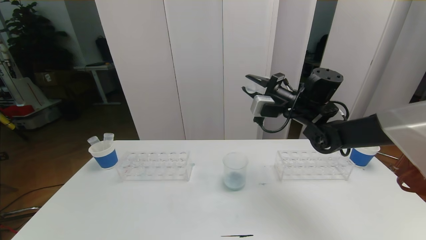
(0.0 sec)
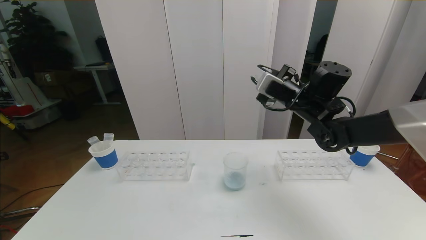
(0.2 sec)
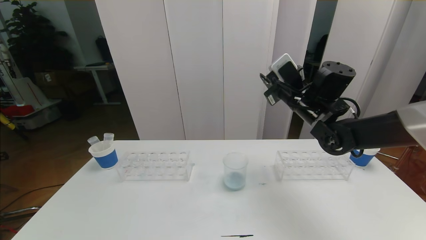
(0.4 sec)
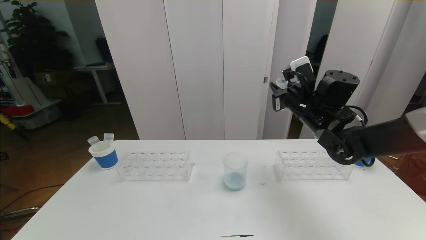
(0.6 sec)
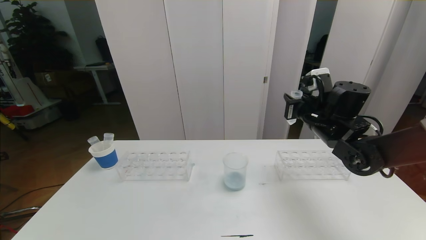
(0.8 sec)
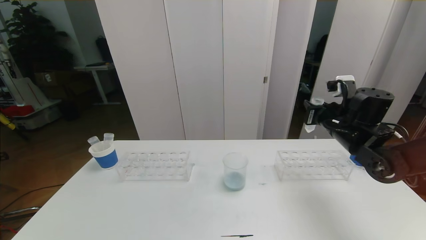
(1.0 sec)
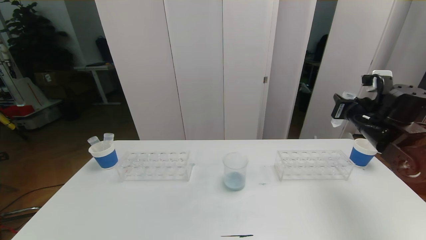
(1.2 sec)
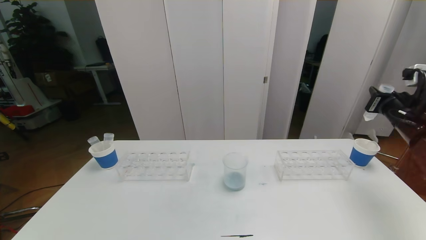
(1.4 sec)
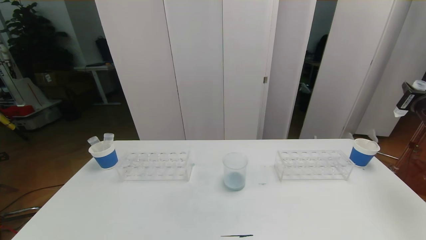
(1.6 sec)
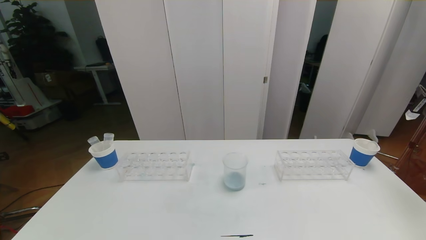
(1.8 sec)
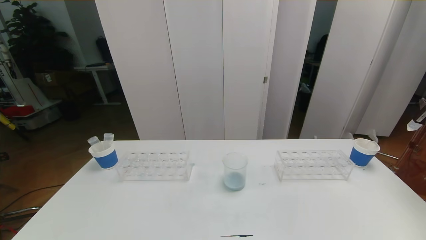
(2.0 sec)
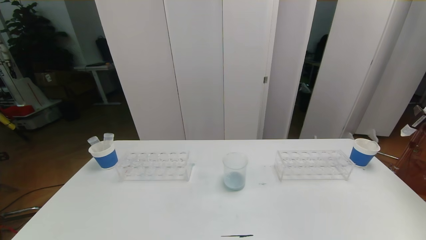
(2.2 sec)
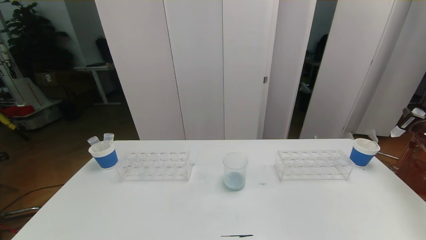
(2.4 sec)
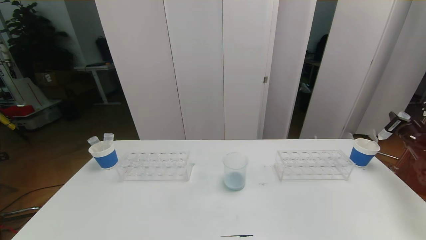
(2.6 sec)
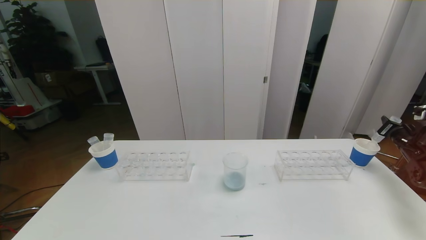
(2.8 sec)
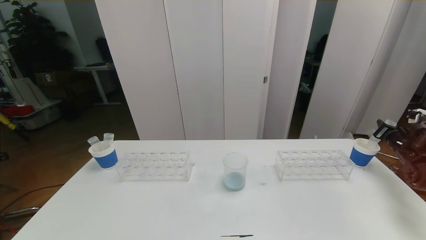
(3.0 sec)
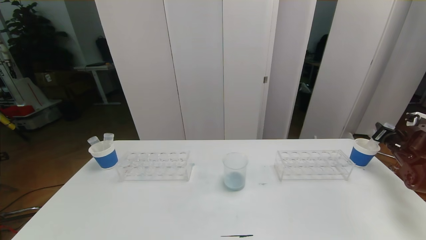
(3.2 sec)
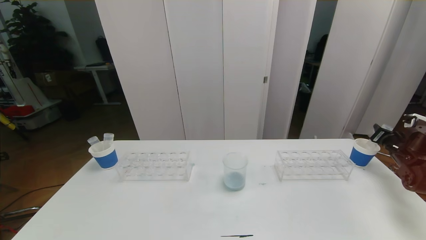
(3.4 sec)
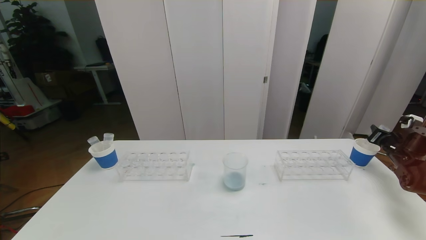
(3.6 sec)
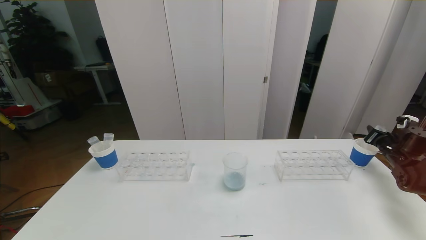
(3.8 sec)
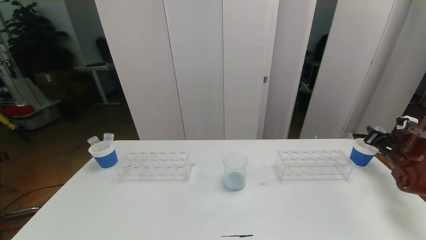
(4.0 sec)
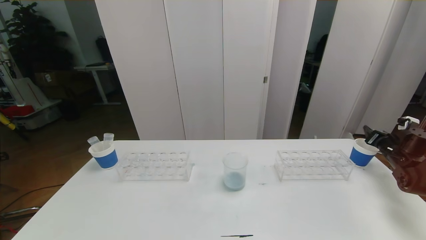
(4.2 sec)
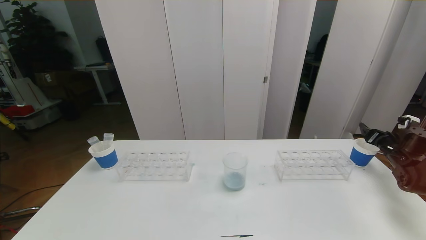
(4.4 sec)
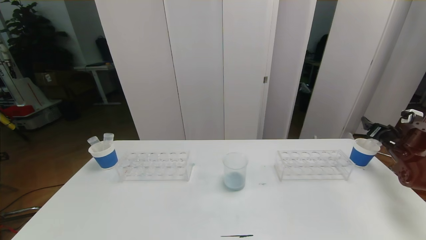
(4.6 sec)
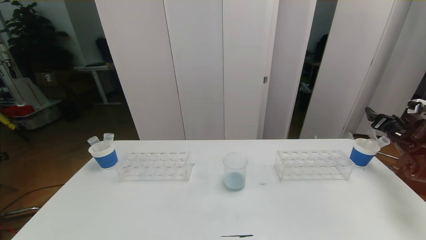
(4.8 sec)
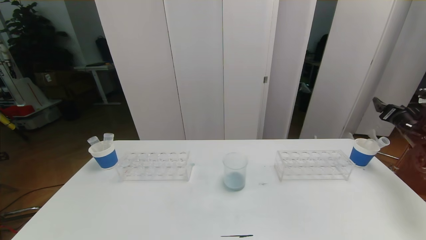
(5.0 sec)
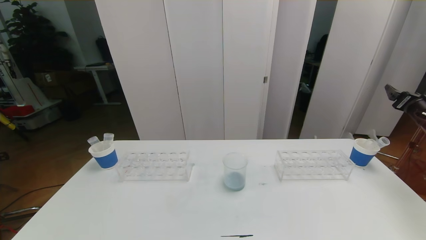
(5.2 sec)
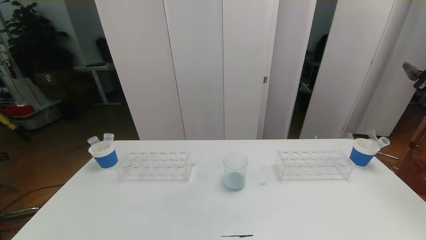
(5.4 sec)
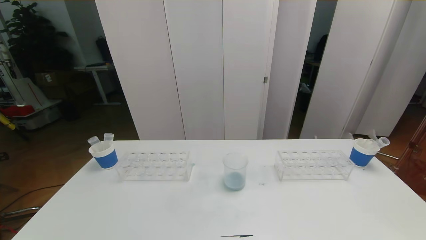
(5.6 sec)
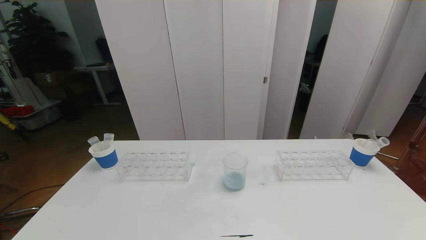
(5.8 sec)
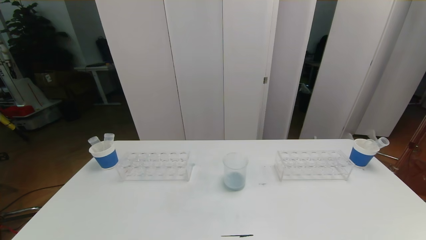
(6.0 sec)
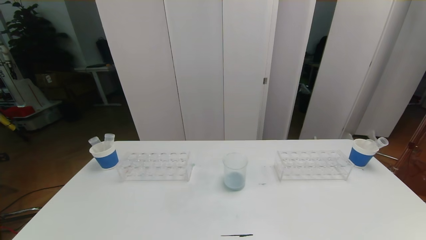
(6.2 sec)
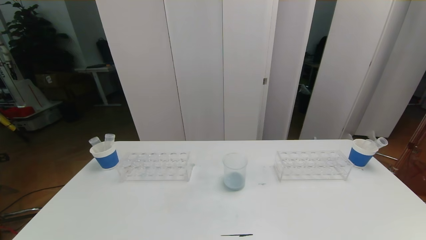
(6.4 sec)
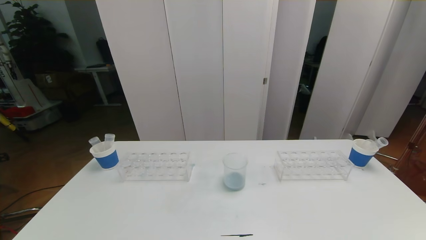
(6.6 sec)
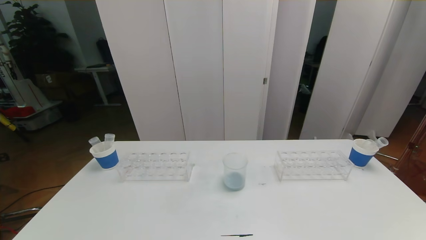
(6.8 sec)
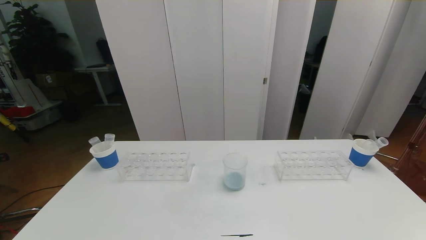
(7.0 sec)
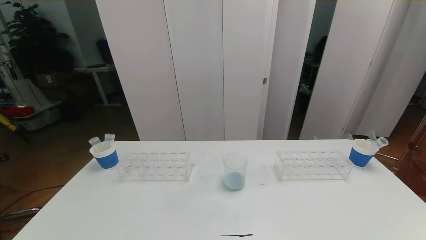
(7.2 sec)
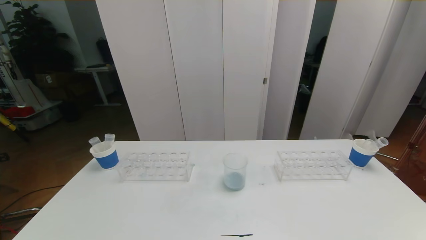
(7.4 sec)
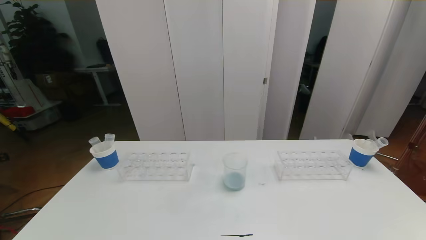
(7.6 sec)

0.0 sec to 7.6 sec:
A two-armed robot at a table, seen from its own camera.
Task of the whole recording: pick up the test tube with red pigment the test tube with blue pigment and the test tube with white pigment by grippers and pour them into the beaker.
Step, 0.0 sec to 7.6 sec: Pour the white reagent into the graduated cylinder and place the test tube into the paper cup.
0.0 sec to 1.6 sec: The right gripper shifts approximately 30 cm to the right.
1.6 sec to 3.0 sec: The right gripper goes roughly 15 cm downward, forward and to the right.
3.0 sec to 4.6 sec: The right gripper opens.
4.6 sec to 6.0 sec: The right gripper shifts about 50 cm backward, upward and to the left.
